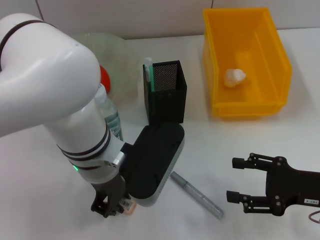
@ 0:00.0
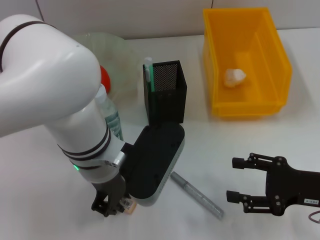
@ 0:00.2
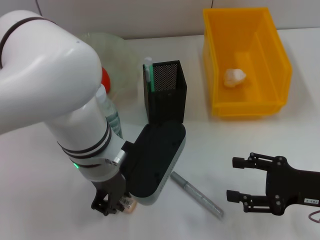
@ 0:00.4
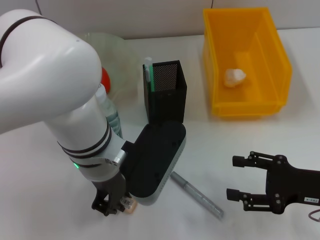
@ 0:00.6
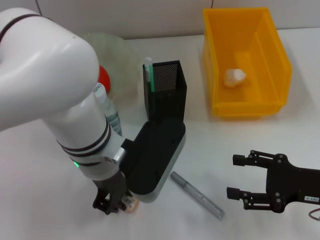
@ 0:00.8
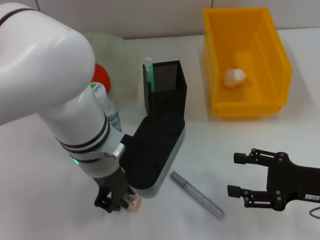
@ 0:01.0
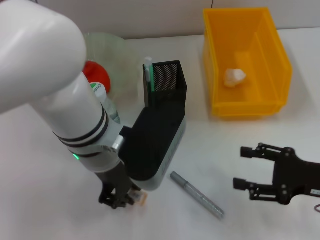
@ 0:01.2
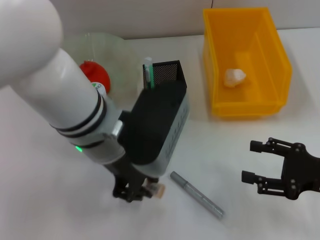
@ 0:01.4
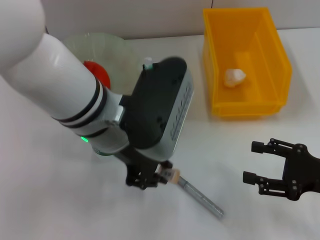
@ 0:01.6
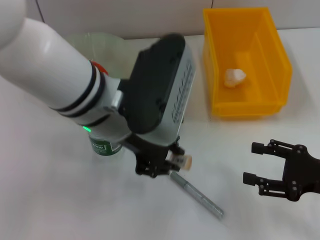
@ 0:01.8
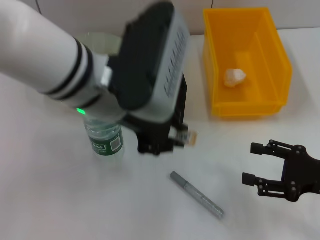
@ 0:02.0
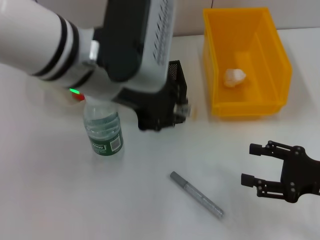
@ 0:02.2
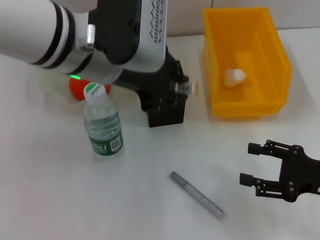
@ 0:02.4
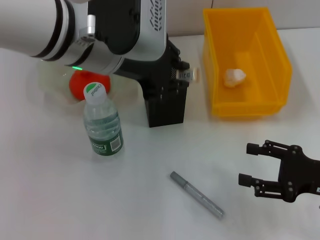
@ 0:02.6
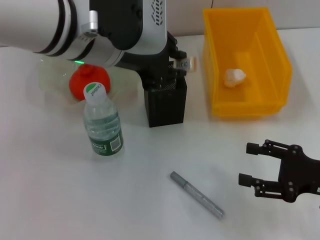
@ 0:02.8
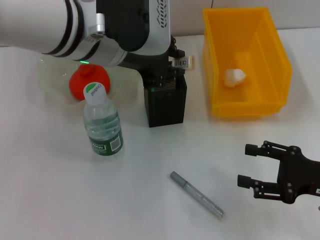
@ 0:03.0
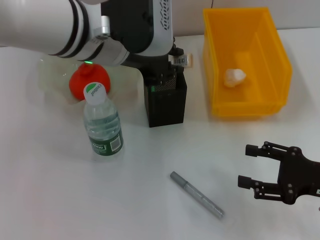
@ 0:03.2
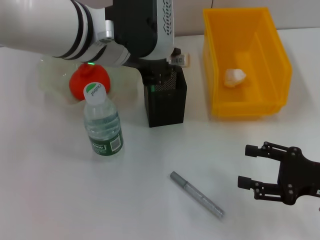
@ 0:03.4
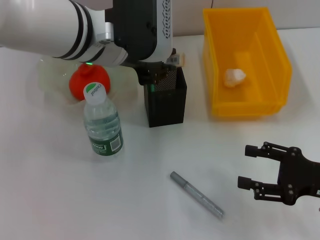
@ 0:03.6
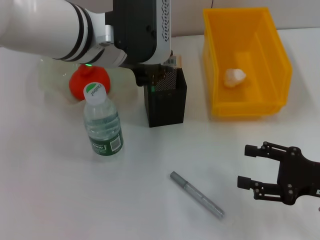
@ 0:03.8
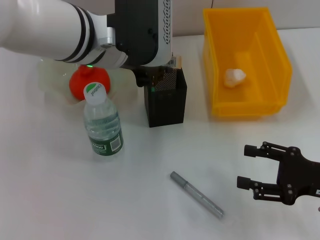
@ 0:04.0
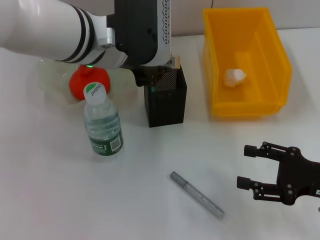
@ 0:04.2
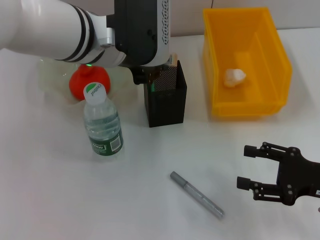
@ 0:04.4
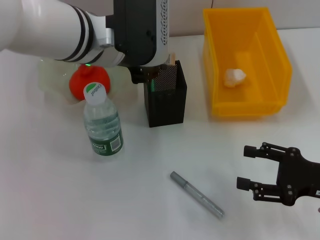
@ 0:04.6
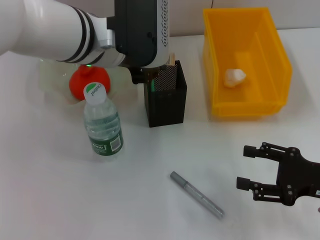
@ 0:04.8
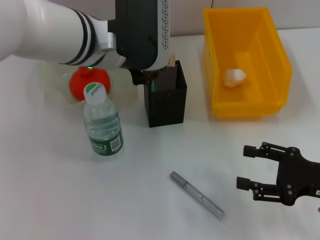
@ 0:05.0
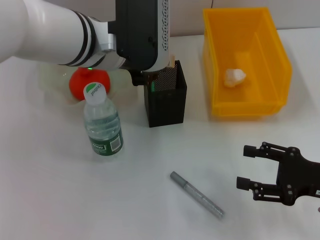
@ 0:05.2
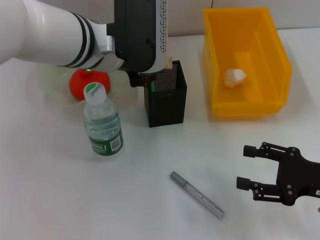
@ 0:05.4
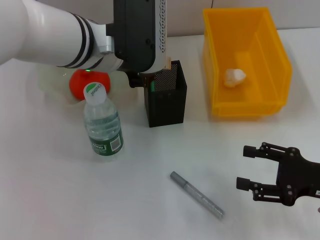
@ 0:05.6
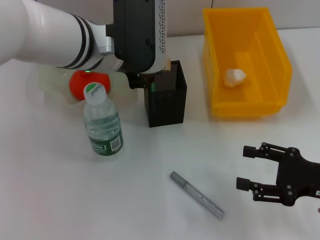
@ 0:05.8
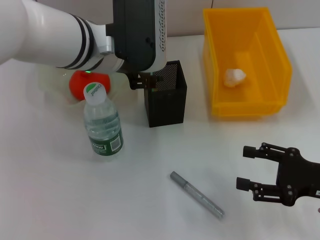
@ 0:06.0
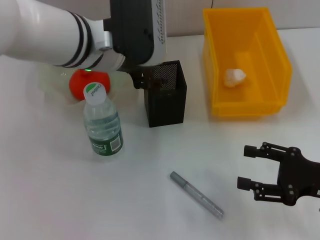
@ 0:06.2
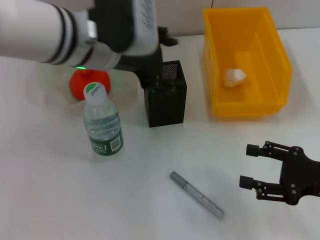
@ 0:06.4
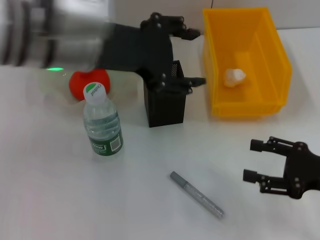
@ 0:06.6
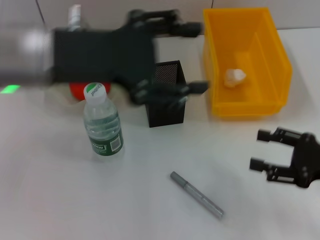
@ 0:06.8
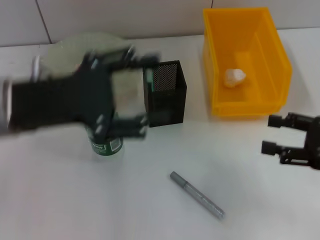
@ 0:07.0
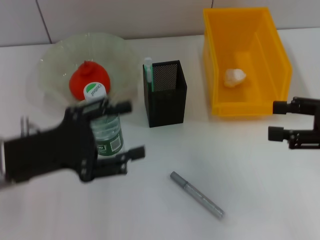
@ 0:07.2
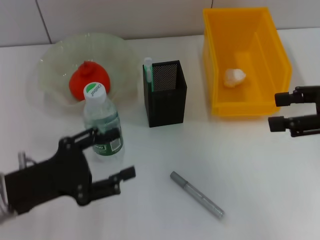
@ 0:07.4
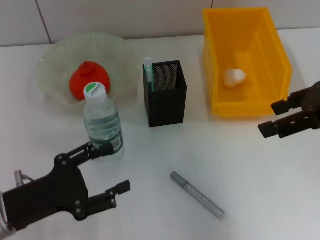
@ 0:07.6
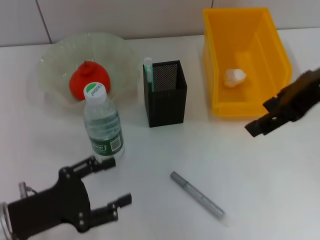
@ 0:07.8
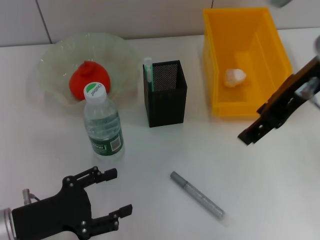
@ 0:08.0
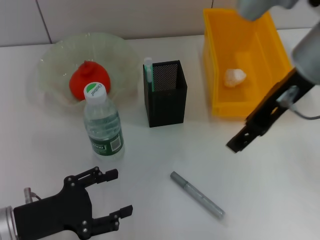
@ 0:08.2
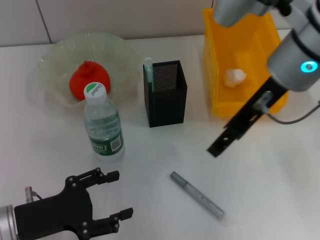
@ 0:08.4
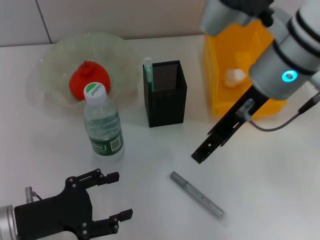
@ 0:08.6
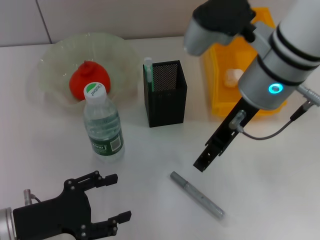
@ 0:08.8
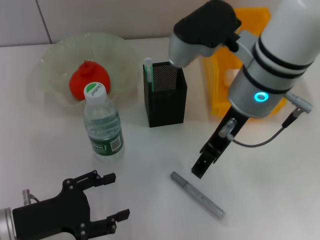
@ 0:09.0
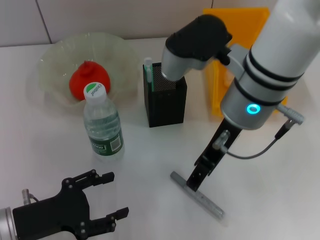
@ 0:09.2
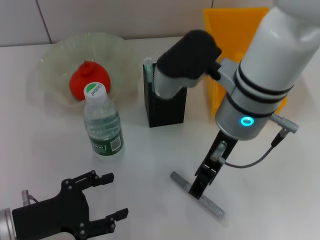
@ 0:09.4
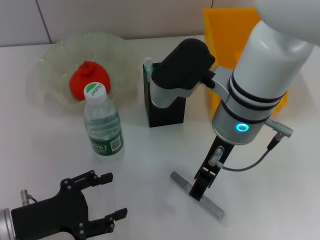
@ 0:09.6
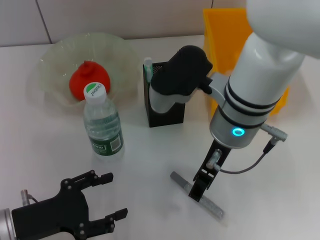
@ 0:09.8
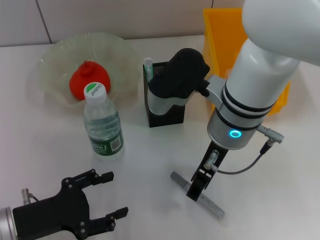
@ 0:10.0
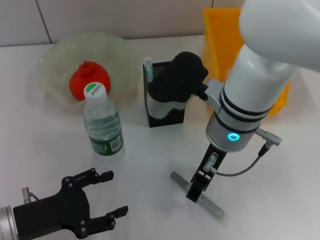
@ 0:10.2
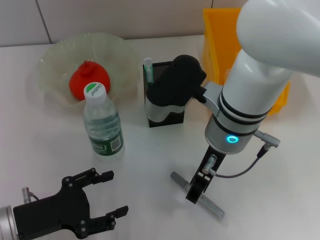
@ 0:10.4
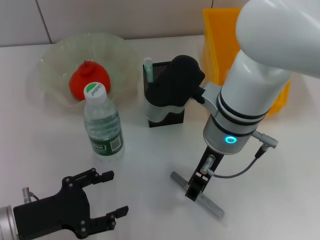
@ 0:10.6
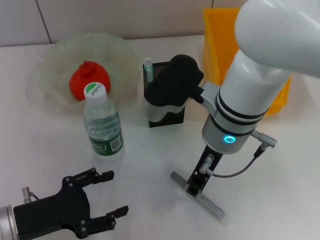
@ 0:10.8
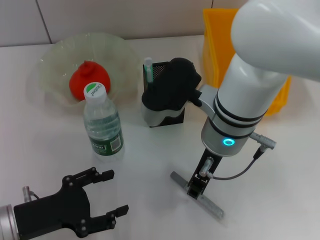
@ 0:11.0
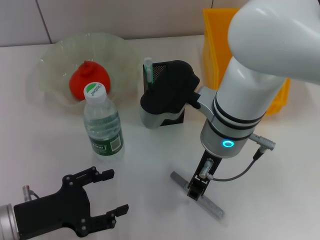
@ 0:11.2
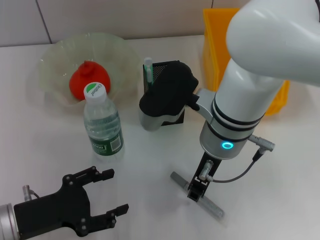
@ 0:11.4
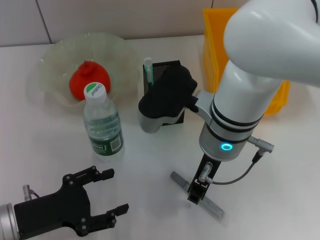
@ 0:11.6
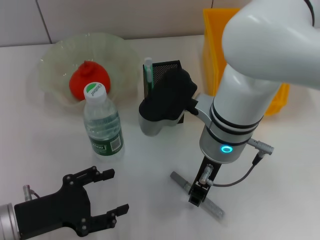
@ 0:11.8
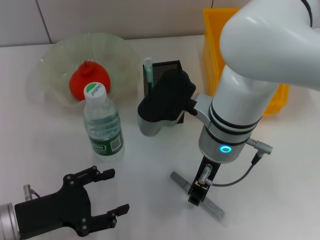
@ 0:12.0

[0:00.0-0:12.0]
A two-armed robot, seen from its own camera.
Step, 0:00.2 to 0:05.8: Put the eraser into the pen holder with the right hand.
0:00.0 to 0:01.6: The left gripper heads upward, covering approximately 5 cm.
0:01.6 to 0:03.0: The left gripper moves upward and forward, some 5 cm.
0:03.0 to 0:04.4: The grippers move only a little.
0:04.4 to 0:06.0: Both grippers stay about where they are.
0:06.0 to 0:07.6: The left gripper travels to the left, backward and downward by about 25 cm, and opens its fingers; the right gripper travels upward by about 20 cm.
0:07.6 to 0:09.0: The right gripper moves to the left, about 15 cm.
0:09.0 to 0:10.4: The right gripper shifts approximately 5 cm downward.
0:10.4 to 0:12.0: The right gripper closes up.

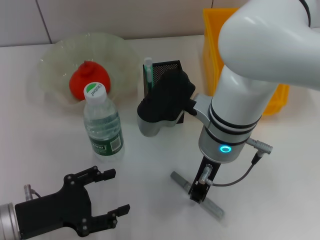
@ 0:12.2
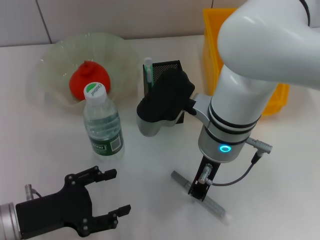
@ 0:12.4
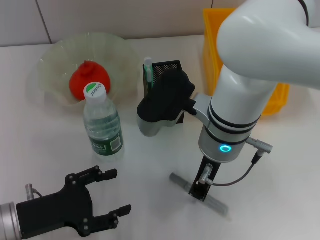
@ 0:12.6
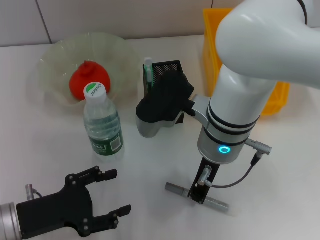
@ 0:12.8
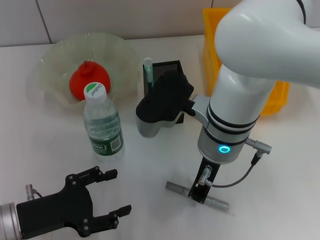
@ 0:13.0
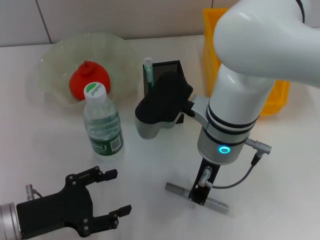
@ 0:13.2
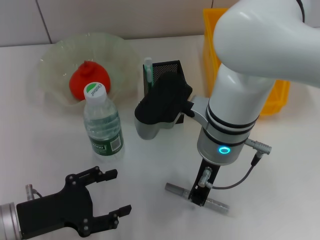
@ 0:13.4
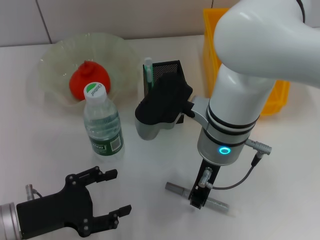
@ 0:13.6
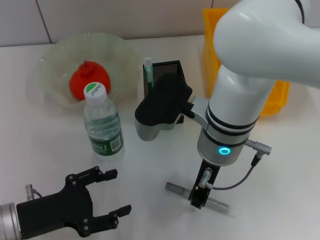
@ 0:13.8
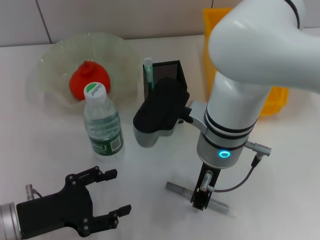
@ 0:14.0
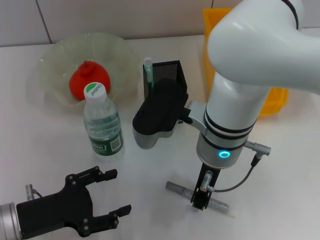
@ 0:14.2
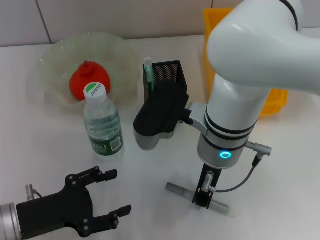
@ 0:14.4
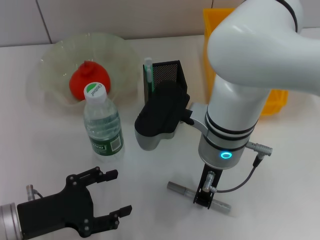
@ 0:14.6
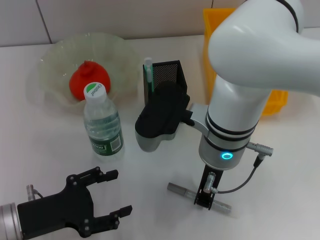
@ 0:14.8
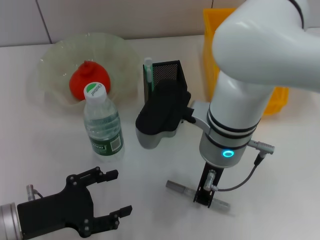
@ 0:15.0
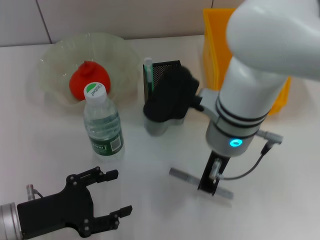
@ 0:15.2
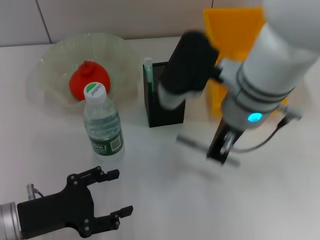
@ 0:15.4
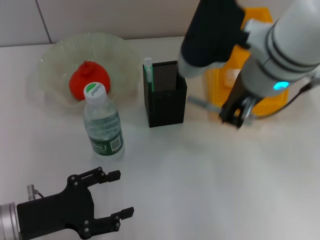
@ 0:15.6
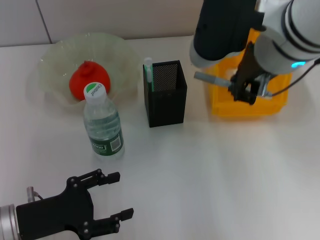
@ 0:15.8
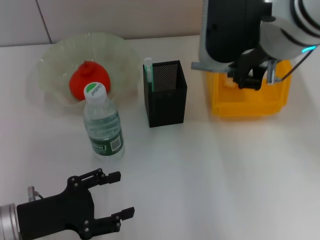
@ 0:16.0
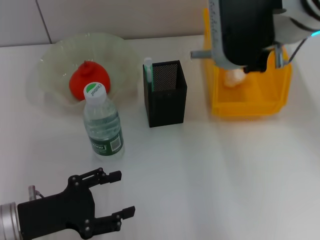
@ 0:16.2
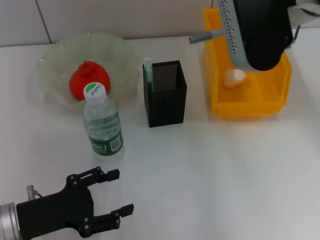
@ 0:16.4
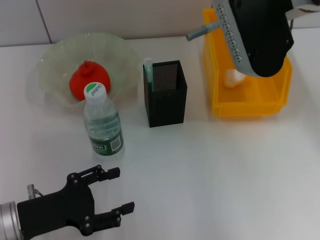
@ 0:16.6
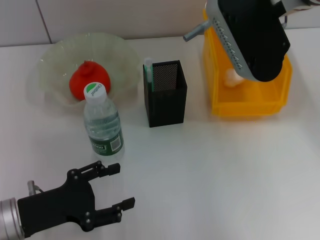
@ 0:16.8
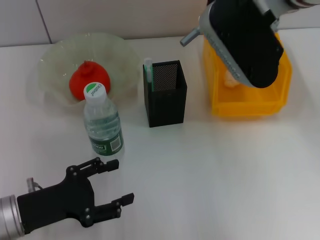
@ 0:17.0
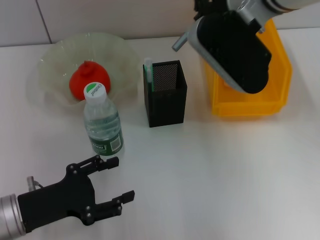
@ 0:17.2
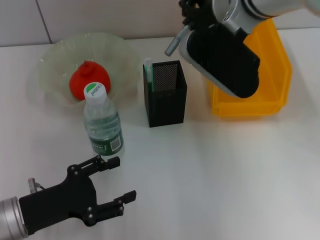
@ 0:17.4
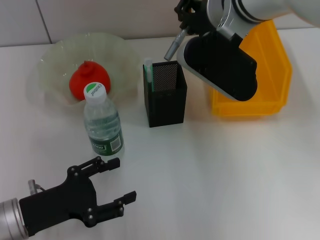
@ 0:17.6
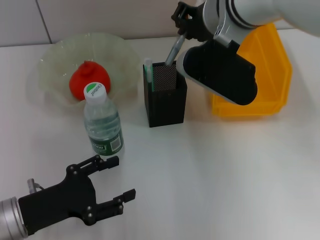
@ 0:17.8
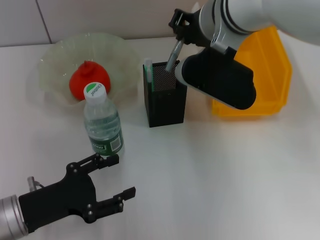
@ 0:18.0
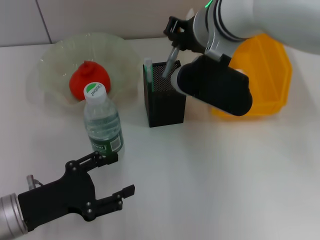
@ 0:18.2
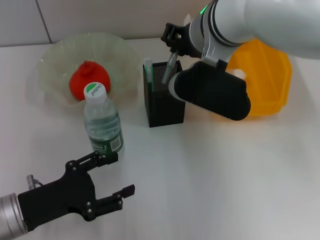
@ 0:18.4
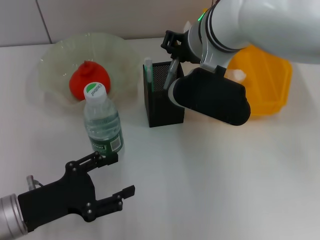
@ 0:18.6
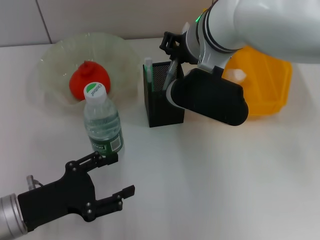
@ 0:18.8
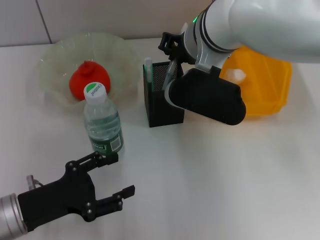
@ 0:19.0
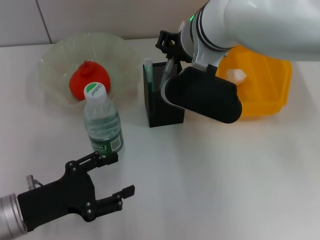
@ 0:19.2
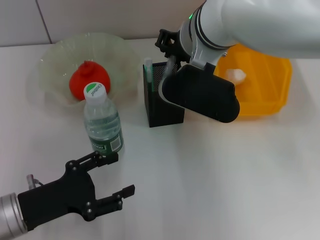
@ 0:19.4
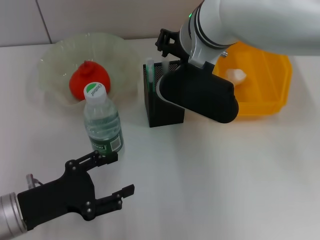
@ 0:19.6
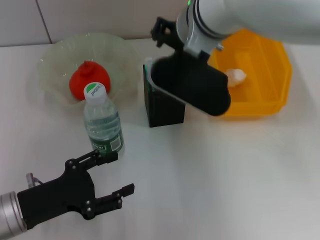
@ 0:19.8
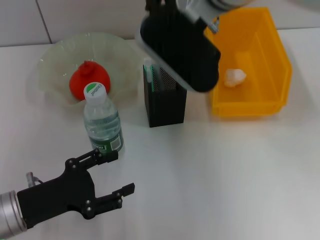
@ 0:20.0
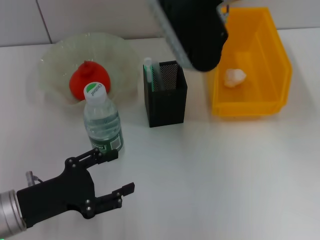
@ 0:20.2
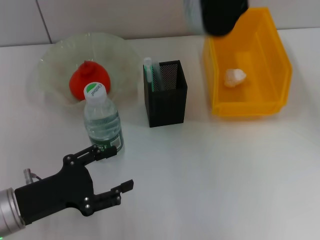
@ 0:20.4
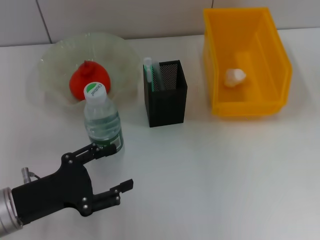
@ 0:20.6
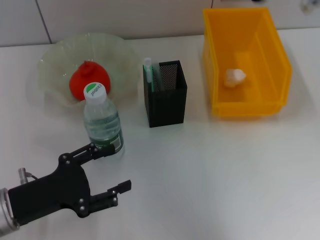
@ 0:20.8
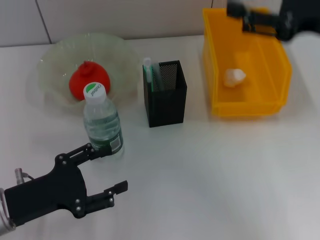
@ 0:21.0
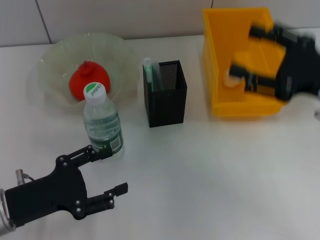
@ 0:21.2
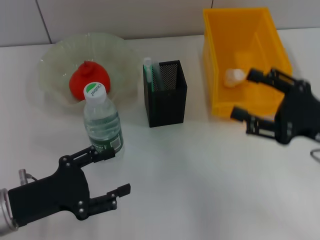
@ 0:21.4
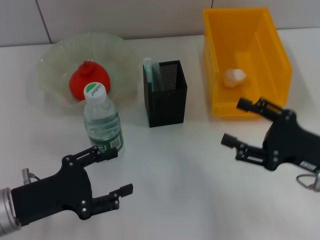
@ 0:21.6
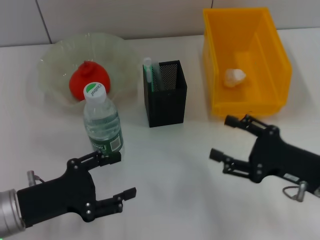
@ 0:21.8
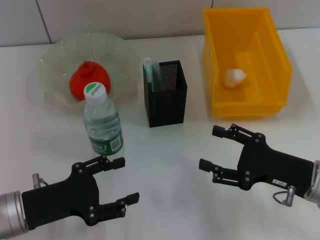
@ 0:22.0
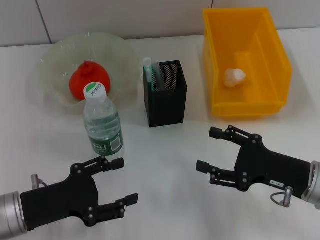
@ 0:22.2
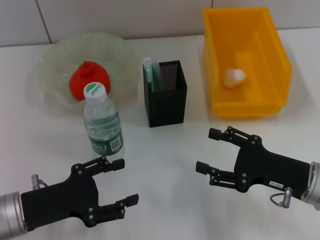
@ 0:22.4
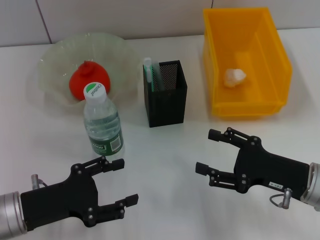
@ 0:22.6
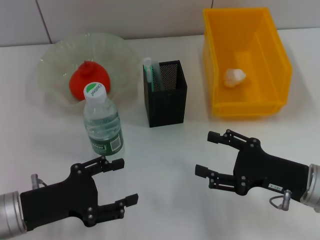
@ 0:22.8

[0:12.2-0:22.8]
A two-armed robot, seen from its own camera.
Step, 0:12.2 to 0:14.8: Grab the gray glue with the right hand.
Step, 0:15.0 to 0:19.8: Place the gray glue into the pen holder with the right hand.
0:12.2 to 0:13.8: The two grippers keep their place.
0:13.8 to 0:15.2: The grippers make only small movements.
0:15.2 to 0:16.8: The right gripper is displaced upward, to the right and forward by roughly 15 cm.
0:16.8 to 0:18.2: The right gripper heads to the left and downward, covering some 10 cm.
0:18.2 to 0:19.8: There are only small adjustments of the grippers.
0:19.8 to 0:21.2: The right gripper moves to the right and backward, approximately 25 cm, and opens.
0:21.2 to 0:22.8: The right gripper heads downward, covering approximately 15 cm.
